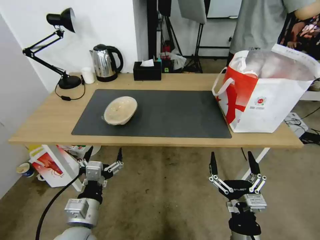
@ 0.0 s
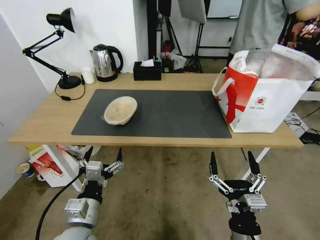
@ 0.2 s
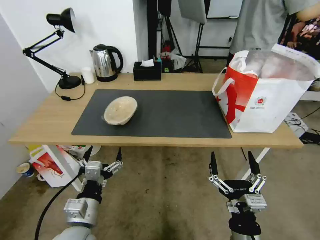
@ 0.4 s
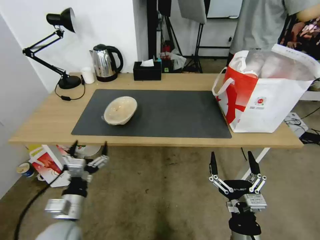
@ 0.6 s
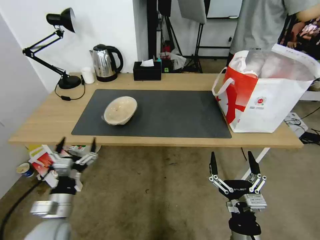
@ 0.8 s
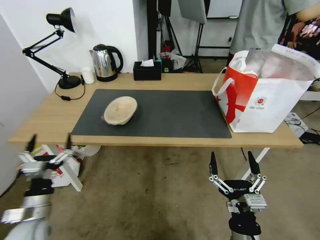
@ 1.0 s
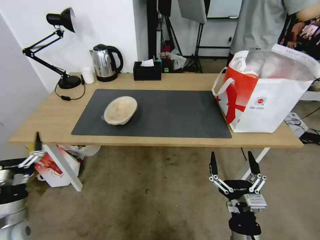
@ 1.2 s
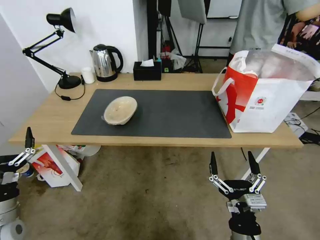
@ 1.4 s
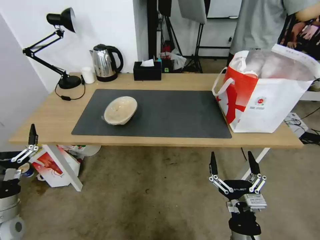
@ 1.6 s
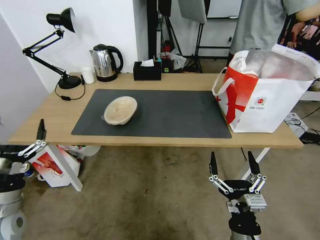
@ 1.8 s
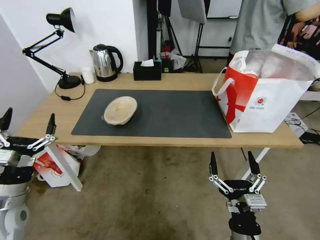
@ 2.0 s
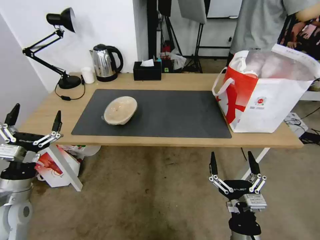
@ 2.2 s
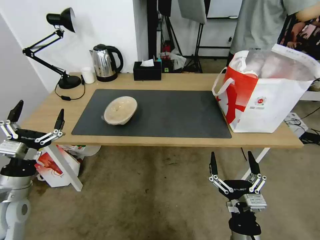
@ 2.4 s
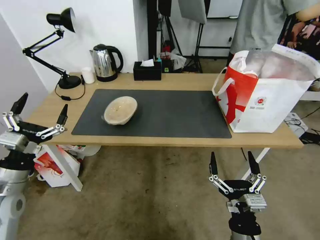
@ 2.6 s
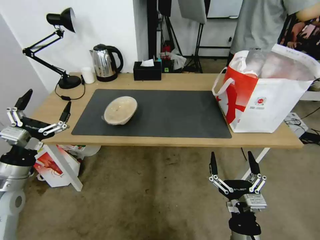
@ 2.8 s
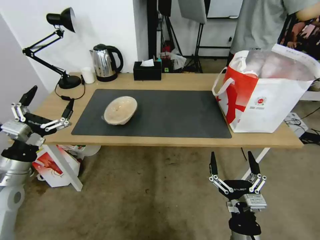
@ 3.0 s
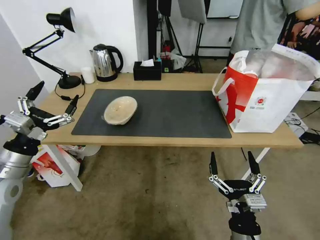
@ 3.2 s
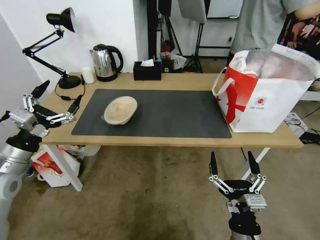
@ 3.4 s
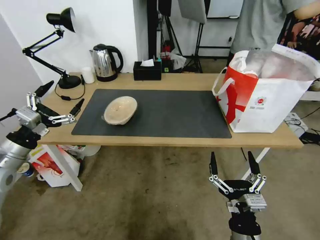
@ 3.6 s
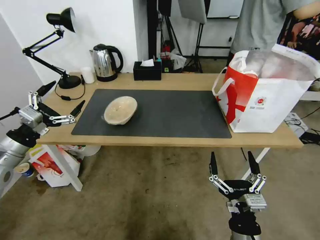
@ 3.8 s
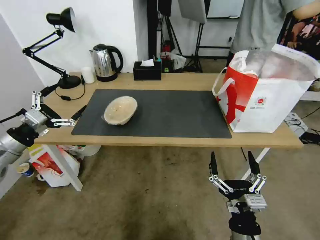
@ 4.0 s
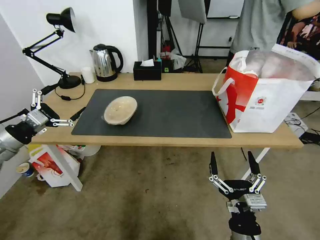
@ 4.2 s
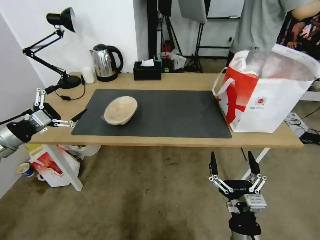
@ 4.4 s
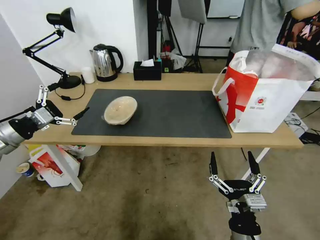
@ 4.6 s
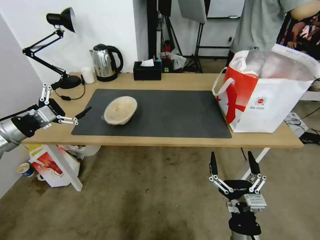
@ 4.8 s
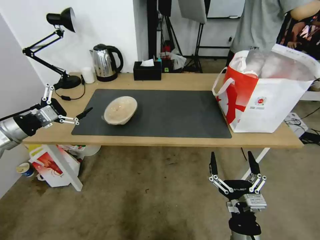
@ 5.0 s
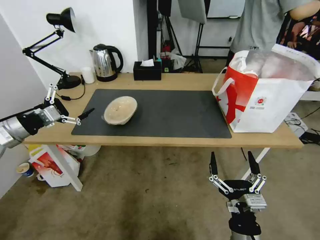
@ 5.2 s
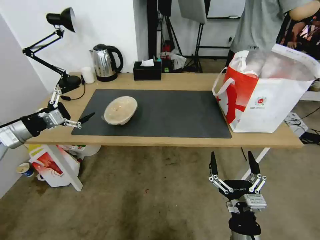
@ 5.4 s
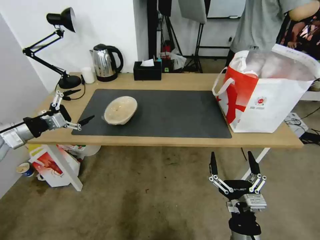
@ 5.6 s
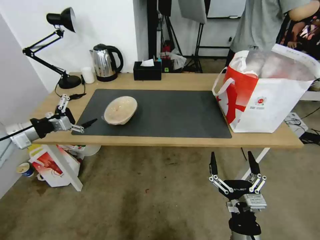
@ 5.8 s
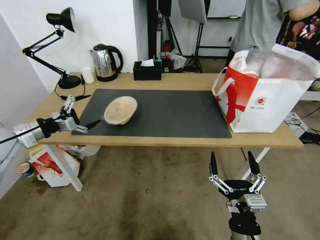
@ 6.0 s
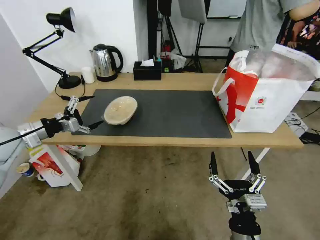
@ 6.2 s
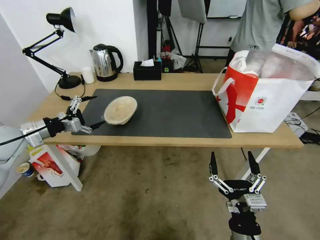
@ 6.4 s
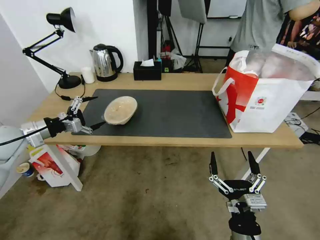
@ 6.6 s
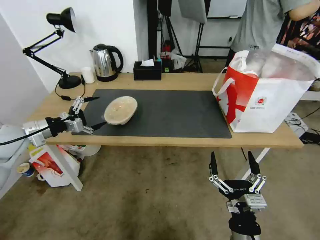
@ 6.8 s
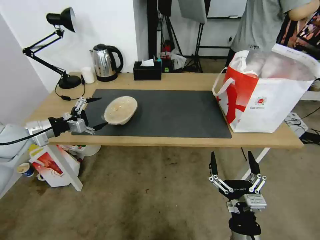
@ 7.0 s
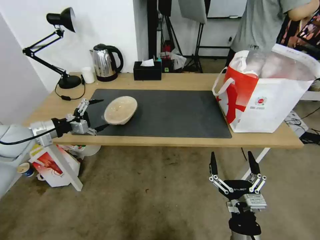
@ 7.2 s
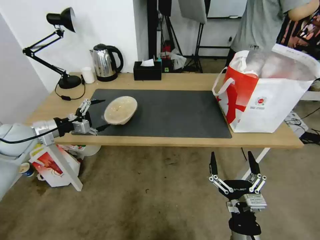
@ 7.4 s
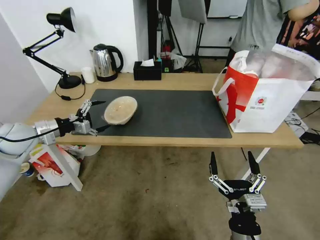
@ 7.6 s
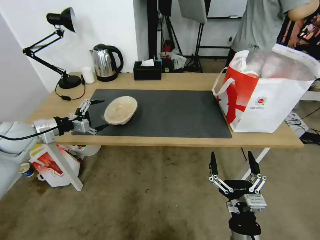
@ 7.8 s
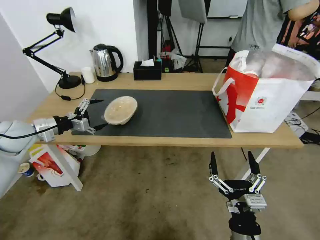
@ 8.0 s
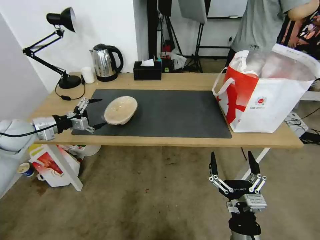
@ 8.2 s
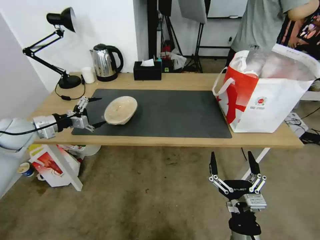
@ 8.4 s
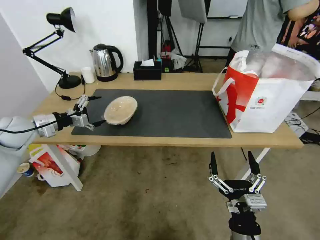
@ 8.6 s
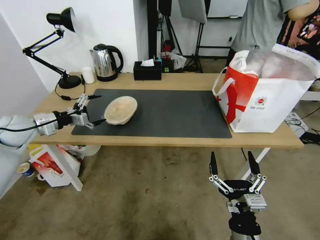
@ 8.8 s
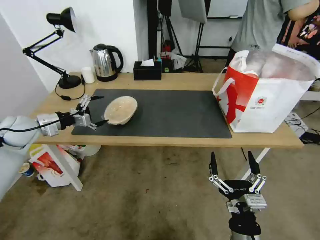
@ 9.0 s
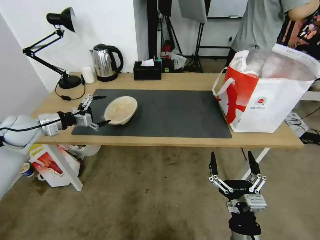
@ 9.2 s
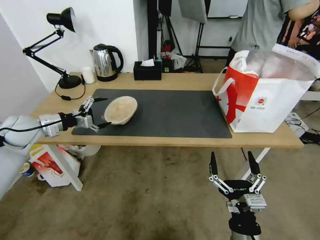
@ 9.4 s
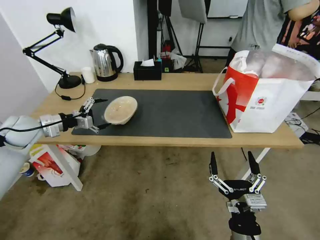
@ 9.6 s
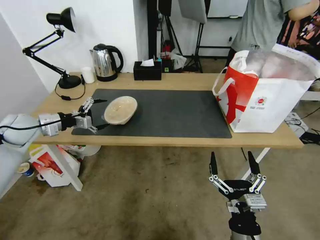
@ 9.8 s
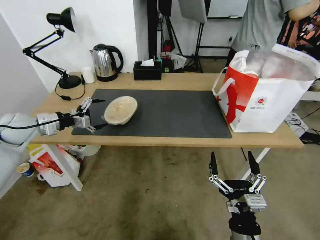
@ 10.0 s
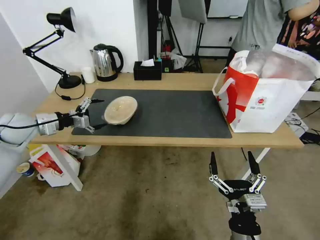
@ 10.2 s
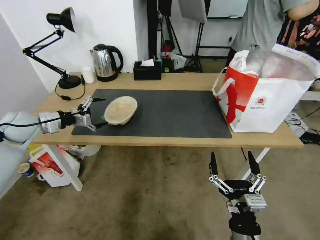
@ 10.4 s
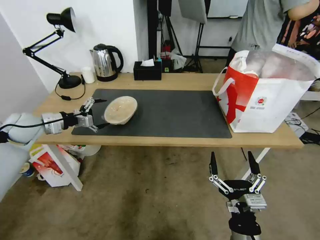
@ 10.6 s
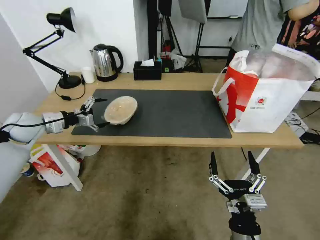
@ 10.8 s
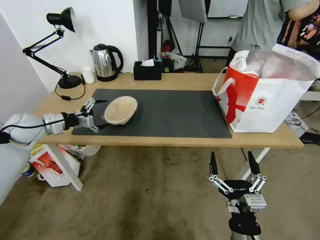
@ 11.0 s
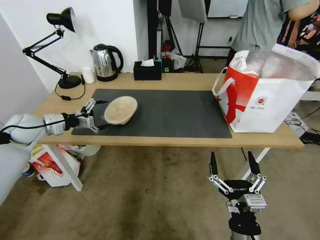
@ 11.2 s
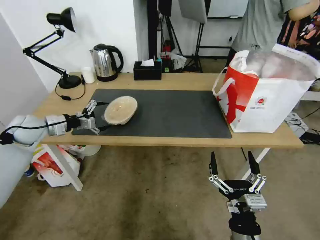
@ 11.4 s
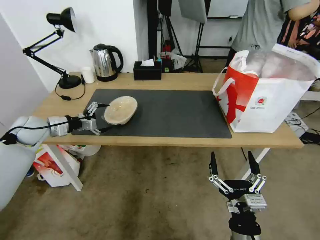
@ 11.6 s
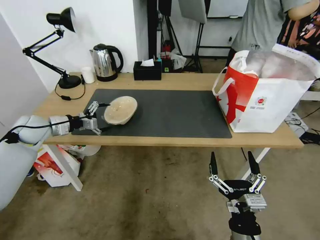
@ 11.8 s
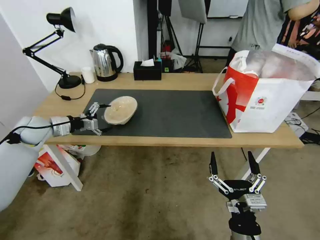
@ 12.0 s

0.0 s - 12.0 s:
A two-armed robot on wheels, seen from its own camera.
Task of the whole recording: Pick up the trash from the table and place it into the takeout bag.
0.0 s - 1.6 s: The left gripper goes about 20 cm to the left.
1.6 s - 3.0 s: The left gripper moves upward and forward, about 10 cm.
3.0 s - 4.4 s: The left gripper goes some 10 cm to the left and forward.
4.4 s - 6.0 s: The left gripper shifts about 5 cm forward.
6.0 s - 7.6 s: There are only small adjustments of the grippers.
7.6 s - 10.4 s: There are only small adjustments of the grippers.
10.4 s - 12.0 s: There are only small adjustments of the grippers.

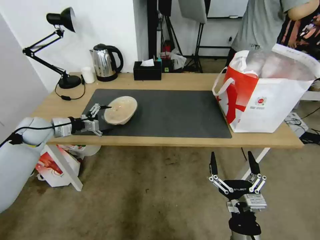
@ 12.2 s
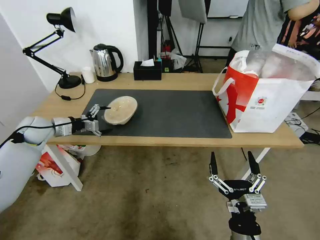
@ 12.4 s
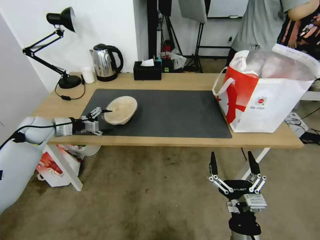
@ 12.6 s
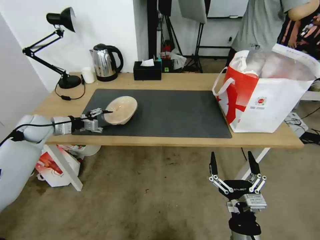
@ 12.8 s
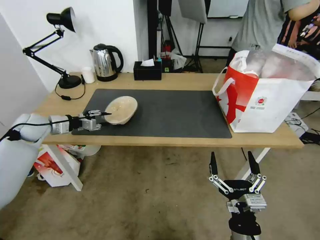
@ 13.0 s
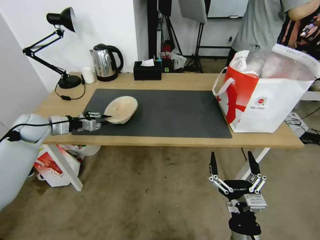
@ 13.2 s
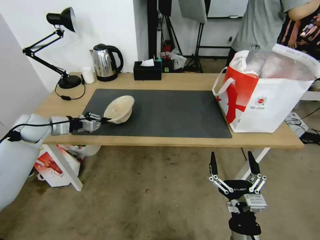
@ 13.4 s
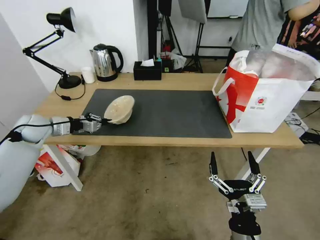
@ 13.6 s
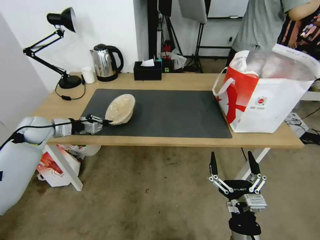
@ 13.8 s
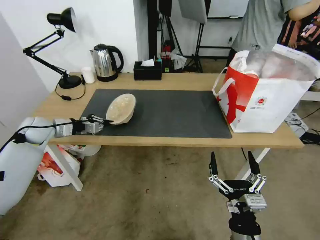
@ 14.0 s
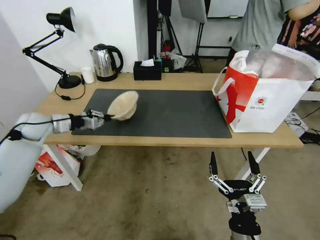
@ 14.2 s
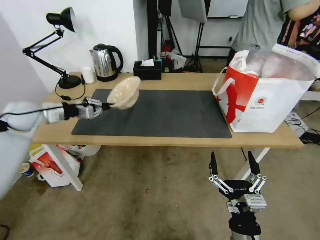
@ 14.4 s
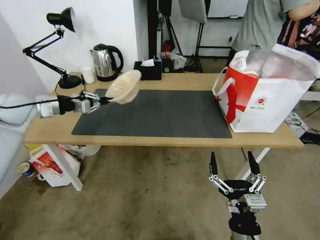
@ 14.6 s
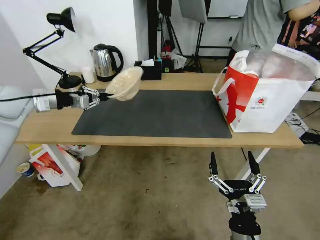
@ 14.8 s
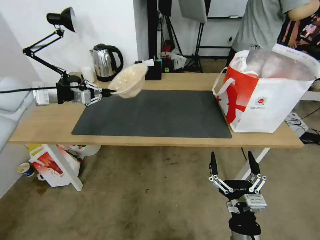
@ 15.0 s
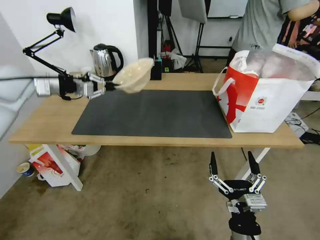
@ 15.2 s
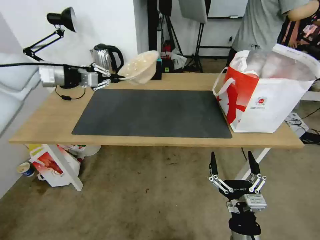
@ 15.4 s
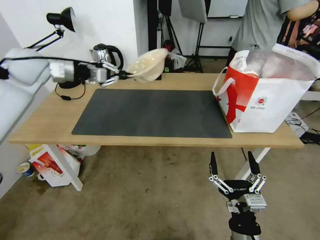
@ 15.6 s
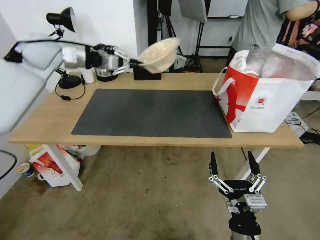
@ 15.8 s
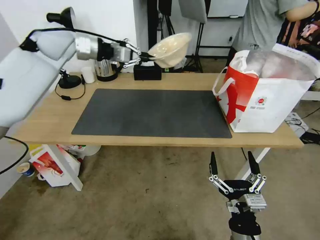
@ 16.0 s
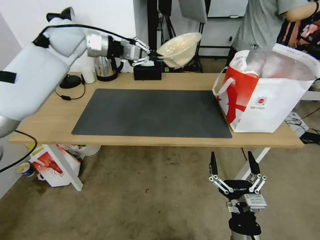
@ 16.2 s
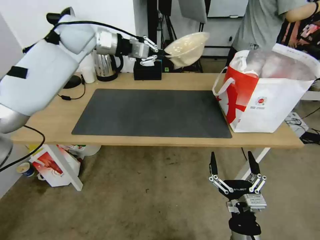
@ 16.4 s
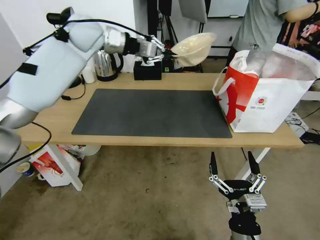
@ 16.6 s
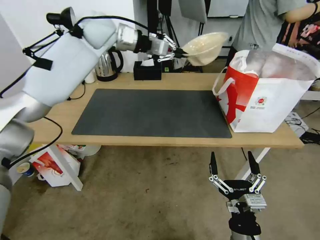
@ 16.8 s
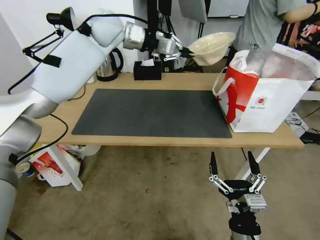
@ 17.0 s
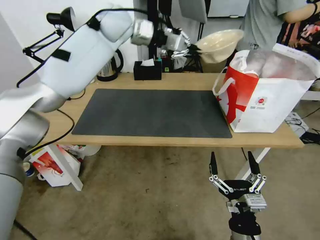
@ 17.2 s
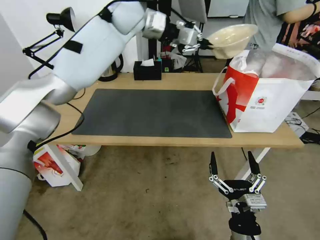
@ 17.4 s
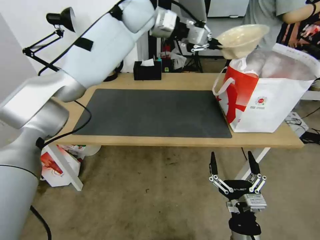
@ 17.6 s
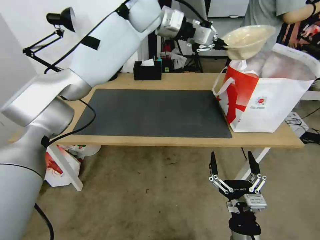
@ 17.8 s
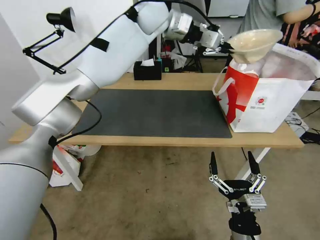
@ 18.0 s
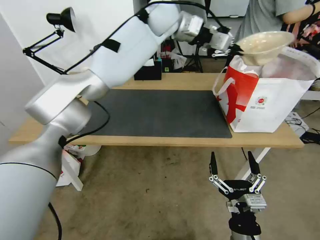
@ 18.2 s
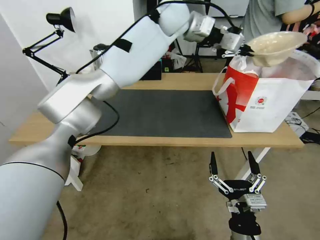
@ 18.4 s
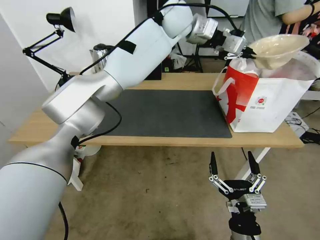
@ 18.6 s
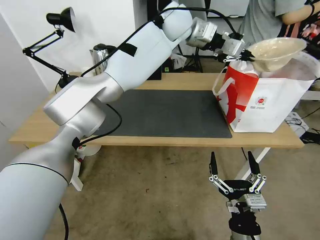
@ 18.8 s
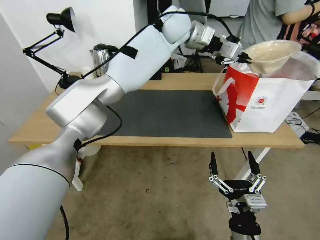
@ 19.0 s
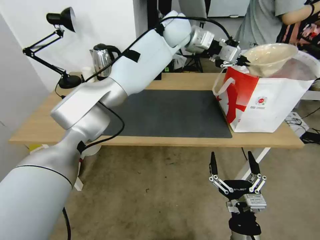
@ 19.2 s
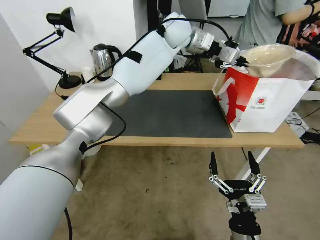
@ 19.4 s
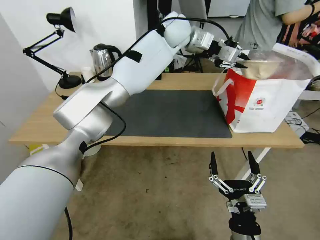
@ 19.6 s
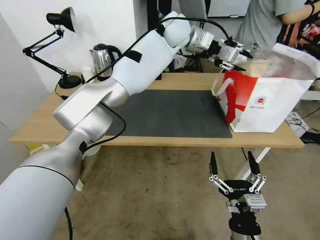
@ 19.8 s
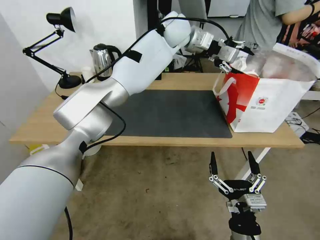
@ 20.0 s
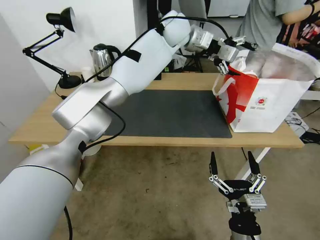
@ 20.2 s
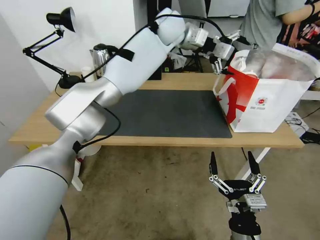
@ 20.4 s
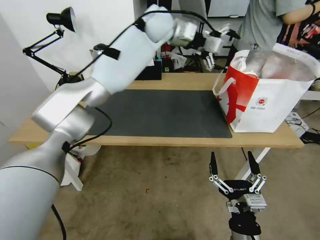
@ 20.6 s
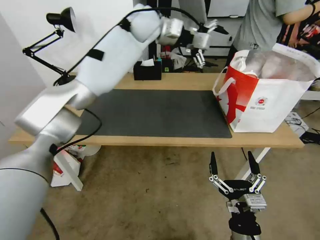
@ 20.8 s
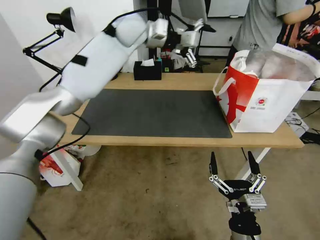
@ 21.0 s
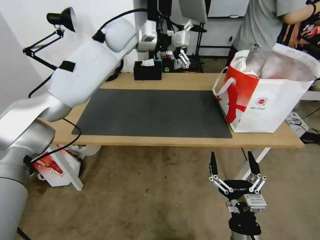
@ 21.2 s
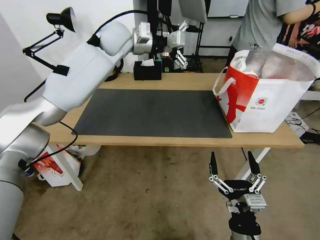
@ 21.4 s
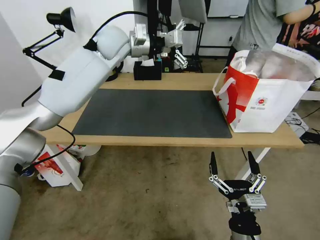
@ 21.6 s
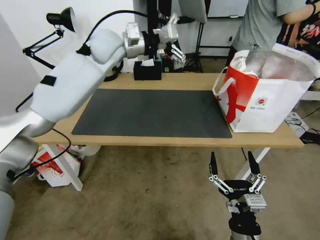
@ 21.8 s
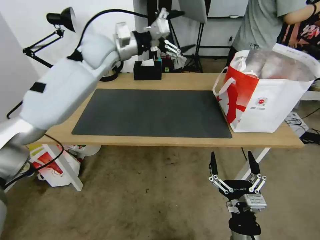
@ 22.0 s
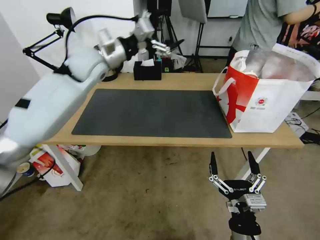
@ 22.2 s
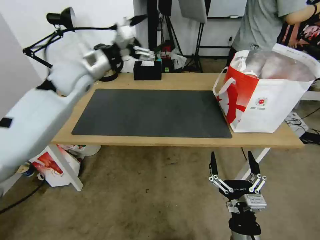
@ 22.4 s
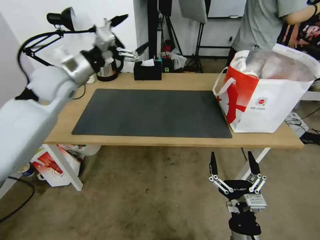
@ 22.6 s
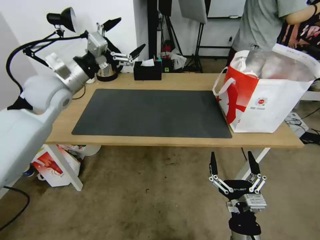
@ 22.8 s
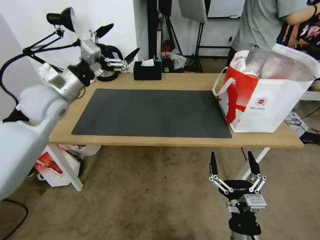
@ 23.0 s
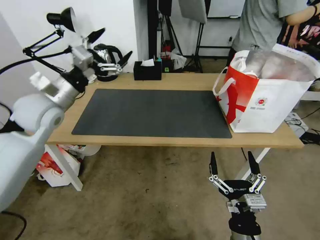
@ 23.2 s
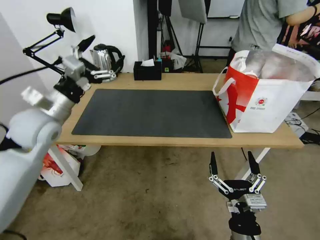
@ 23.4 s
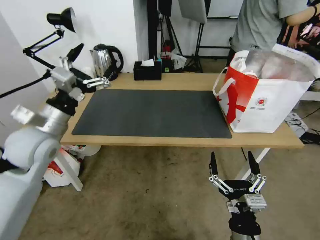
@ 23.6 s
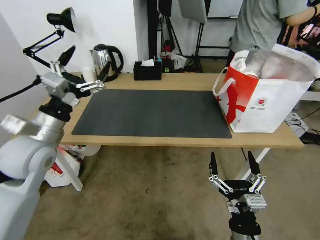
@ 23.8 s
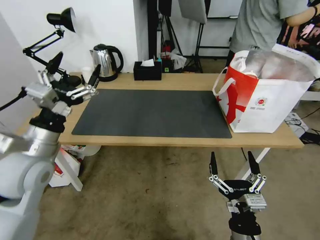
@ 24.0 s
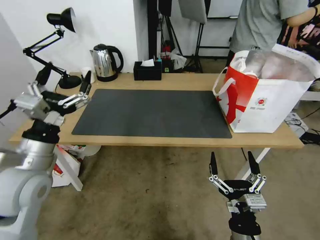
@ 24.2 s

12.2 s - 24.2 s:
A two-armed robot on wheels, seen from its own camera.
Task of the whole recording: Pick up the trash from the table and place it into the takeout bag.
12.2 s - 13.8 s: The left gripper closes.
13.8 s - 15.2 s: The left gripper shifts approximately 20 cm upward.
15.2 s - 16.6 s: The left gripper goes approximately 25 cm to the right, forward and upward.
16.6 s - 18.2 s: The left gripper moves to the right, approximately 20 cm.
18.2 s - 19.8 s: The left gripper ends up roughly 5 cm from where it was, and opens up.
19.8 s - 21.2 s: The left gripper moves to the left, approximately 15 cm, and opens up.
21.2 s - 22.6 s: The left gripper heads to the left, backward and downward, covering approximately 25 cm.
22.6 s - 24.2 s: The left gripper is displaced backward and downward by roughly 25 cm.
